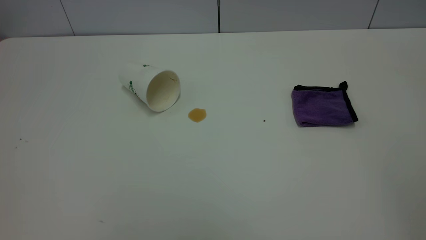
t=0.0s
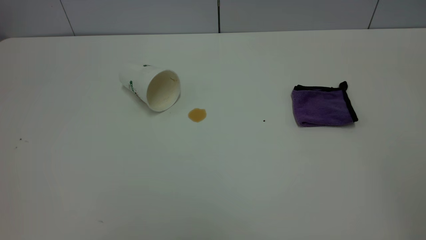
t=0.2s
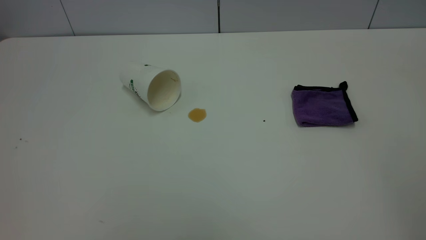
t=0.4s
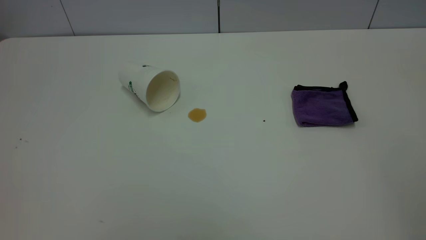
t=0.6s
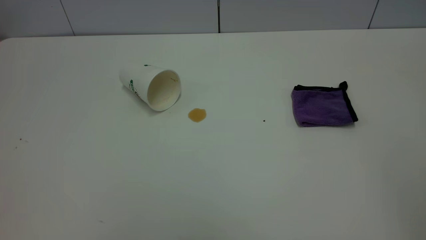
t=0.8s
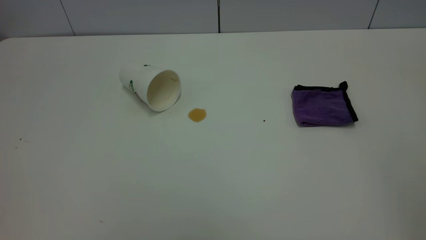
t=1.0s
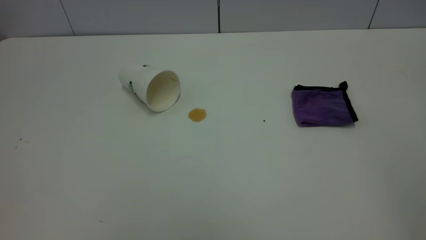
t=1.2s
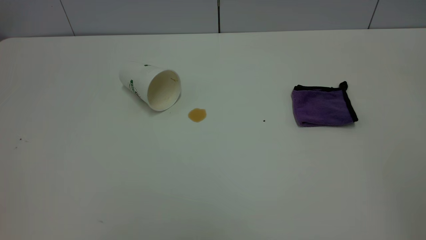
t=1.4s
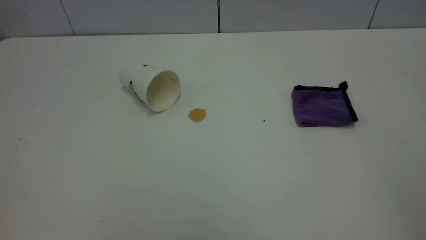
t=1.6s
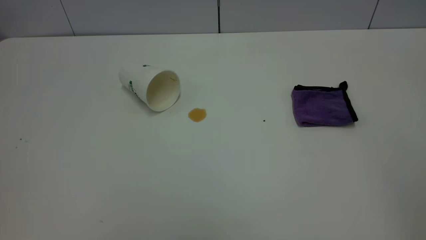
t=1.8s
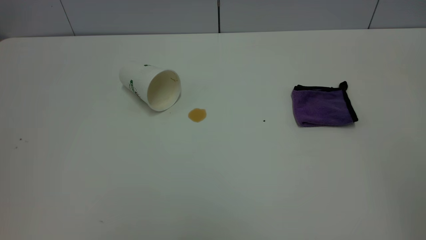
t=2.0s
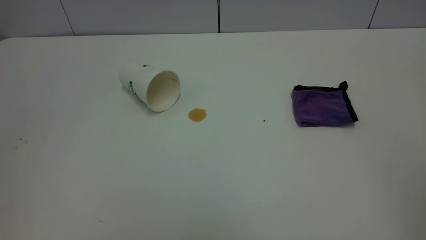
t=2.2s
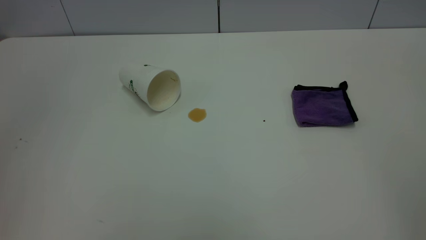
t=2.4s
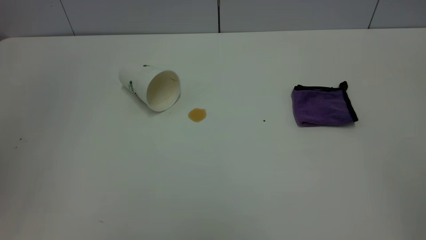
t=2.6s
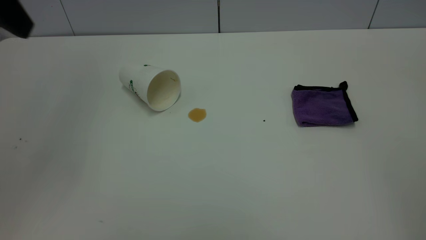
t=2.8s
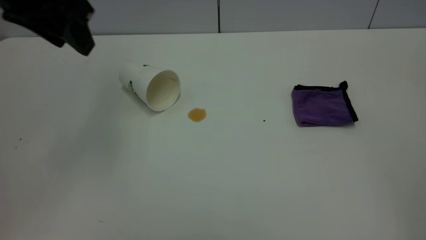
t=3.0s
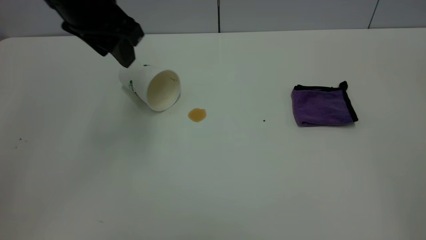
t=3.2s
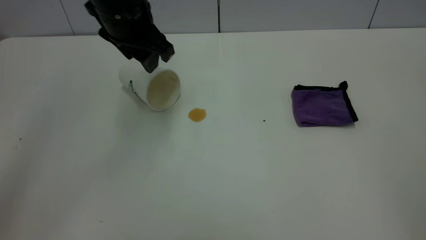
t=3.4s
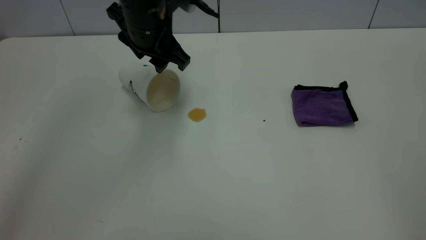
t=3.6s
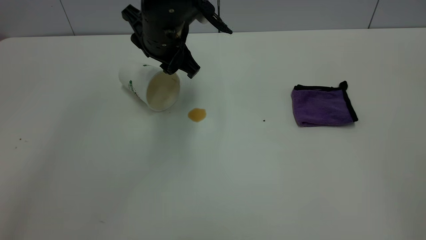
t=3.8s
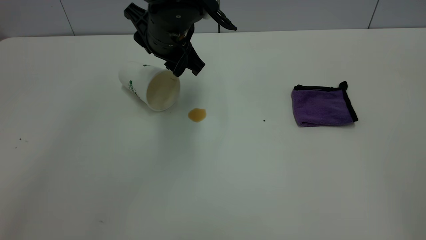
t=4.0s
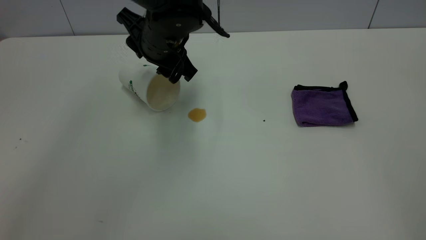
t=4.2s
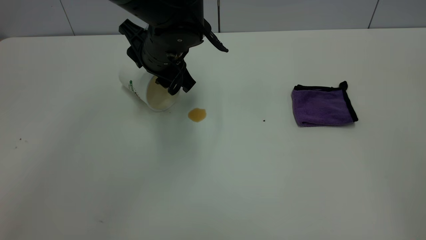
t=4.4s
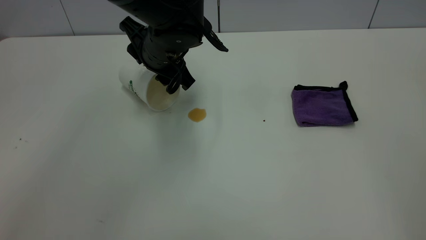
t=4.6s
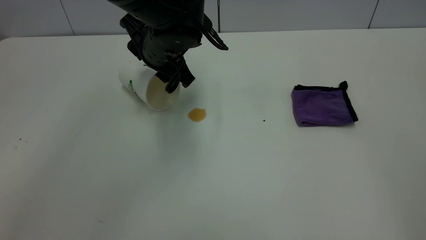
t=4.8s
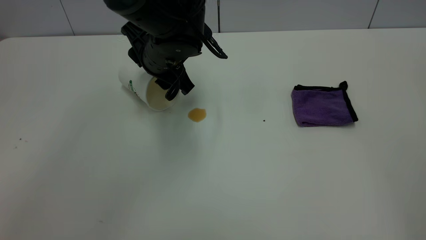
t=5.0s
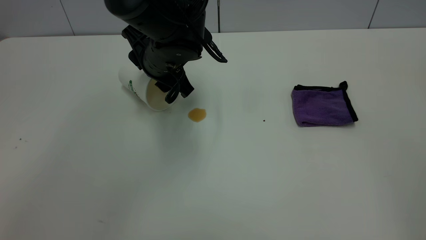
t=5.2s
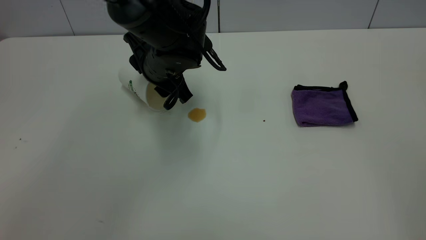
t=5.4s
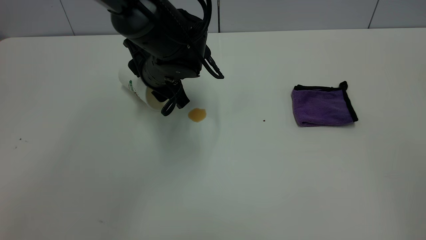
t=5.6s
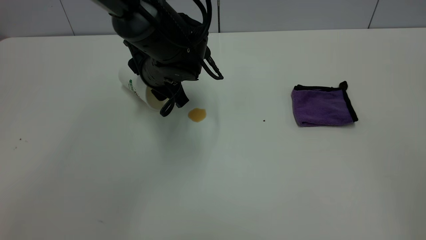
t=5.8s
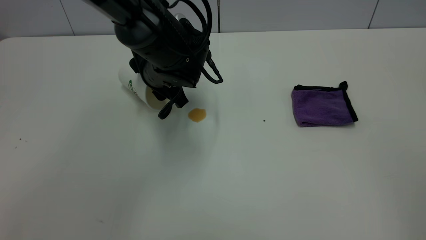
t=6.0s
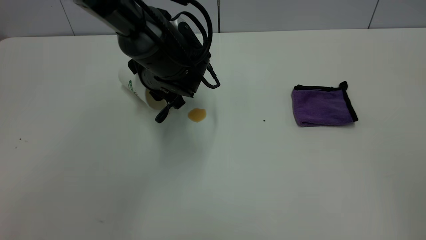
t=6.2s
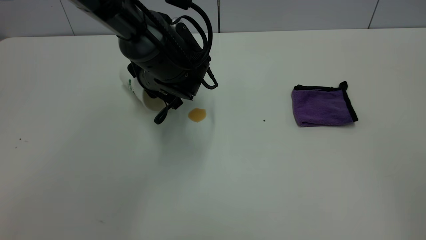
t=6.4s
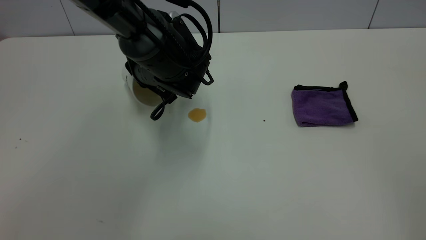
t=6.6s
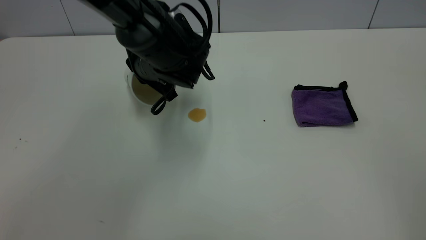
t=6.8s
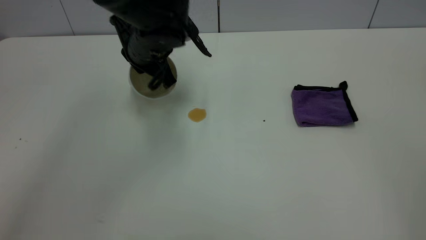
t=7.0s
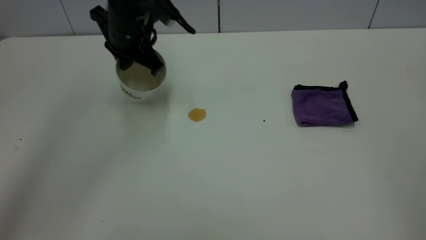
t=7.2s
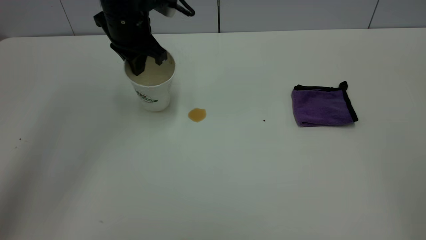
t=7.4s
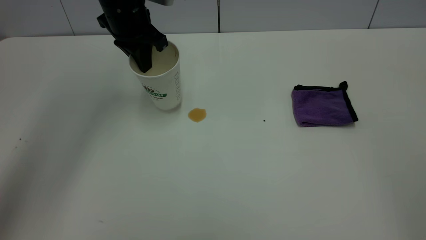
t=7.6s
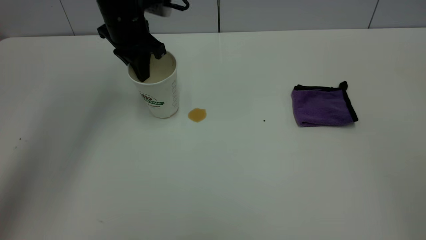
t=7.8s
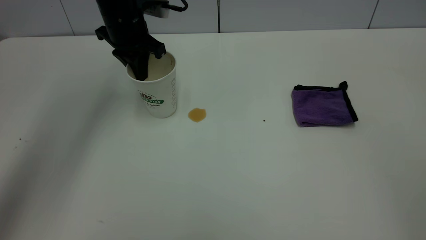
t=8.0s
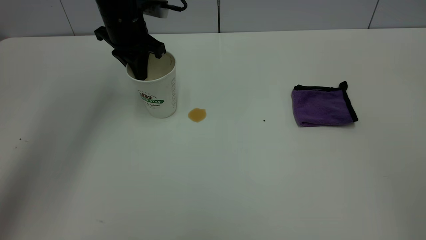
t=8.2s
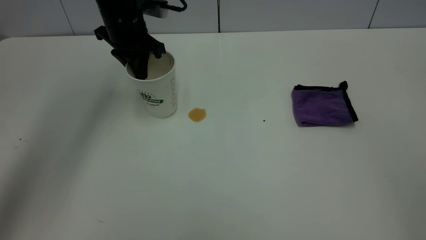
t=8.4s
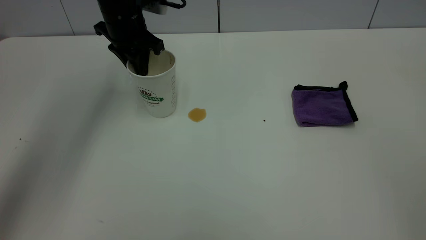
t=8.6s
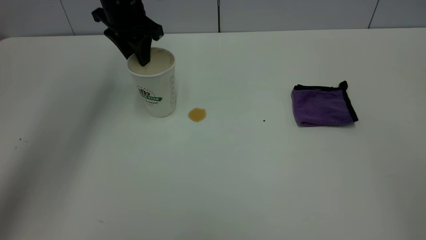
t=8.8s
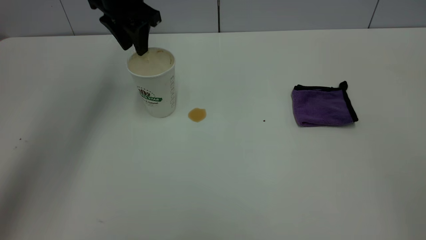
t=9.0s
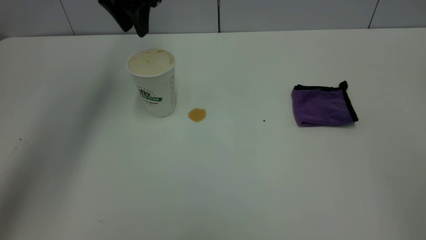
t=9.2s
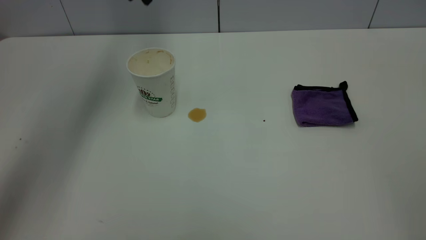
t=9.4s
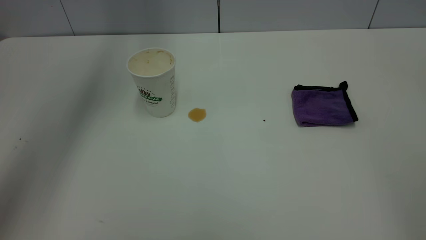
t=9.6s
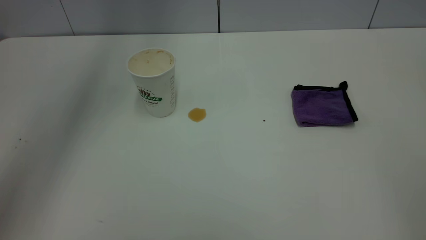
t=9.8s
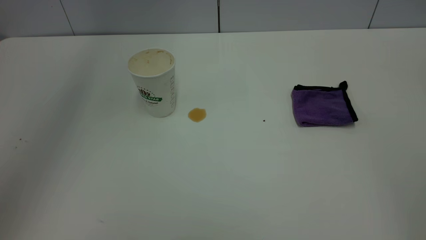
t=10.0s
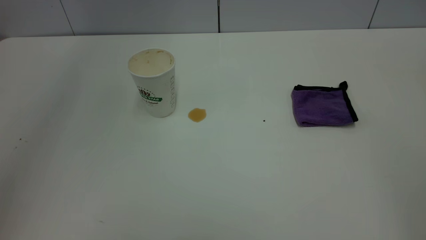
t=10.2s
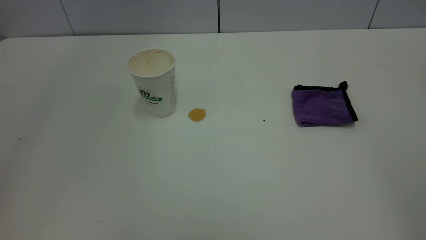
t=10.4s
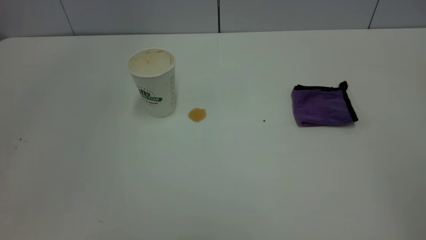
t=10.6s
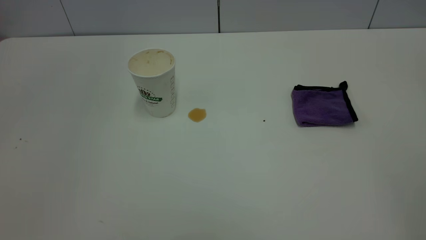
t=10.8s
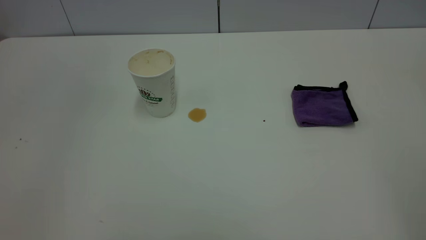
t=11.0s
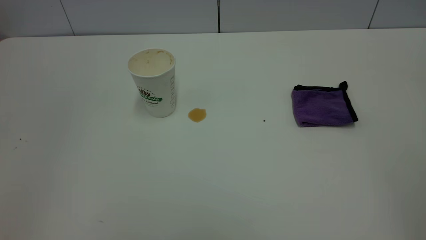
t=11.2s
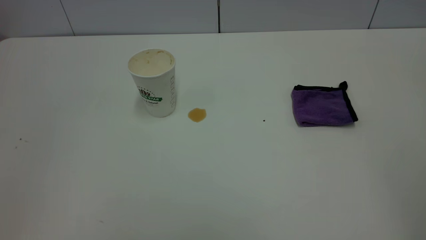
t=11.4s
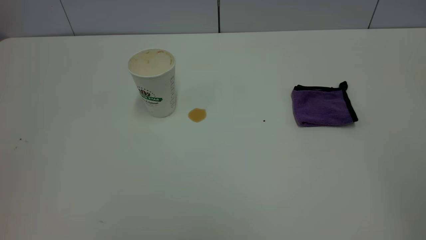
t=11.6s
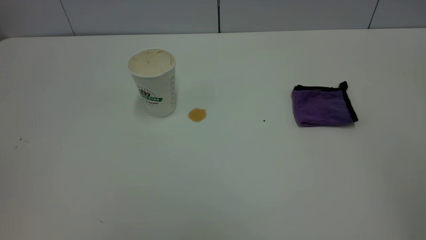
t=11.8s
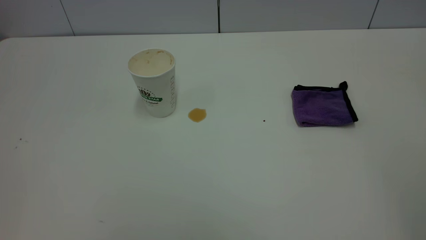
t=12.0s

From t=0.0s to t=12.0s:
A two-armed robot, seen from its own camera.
Task of the whole recording: the left gripper pick up the fallen cup and place it upright, the right gripper grasp the purple rag and wipe the tea stain on the table, the right gripper put the purple rag back in its original position.
Step, from t=0.0s to t=9.0s: Stand the paper cup upright.
From t=0.0s to t=1.6s: Both grippers stay put.
From t=1.6s to t=3.0s: The left gripper heads forward, covering approximately 35 cm.
From t=3.0s to t=4.4s: The left gripper goes about 20 cm downward, to the right and forward.
From t=4.4s to t=6.0s: The left gripper moves downward, about 5 cm.
From t=6.0s to t=7.6s: The left gripper goes about 15 cm upward, to the left and forward, and closes its fingers.
From t=7.6s to t=9.0s: The left gripper opens up.
From t=9.0s to t=10.4s: The left gripper shifts about 40 cm upward and backward.

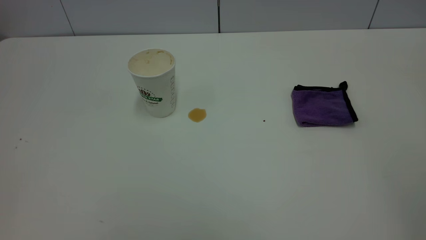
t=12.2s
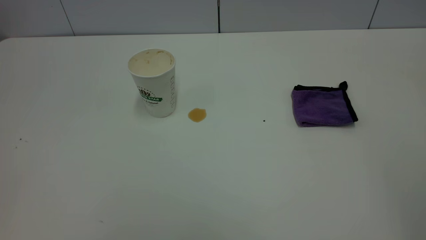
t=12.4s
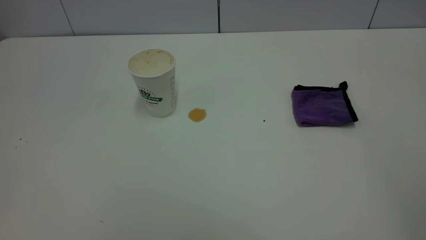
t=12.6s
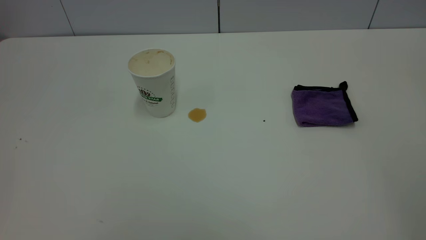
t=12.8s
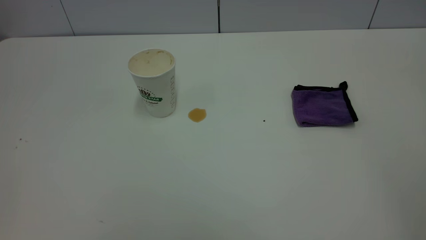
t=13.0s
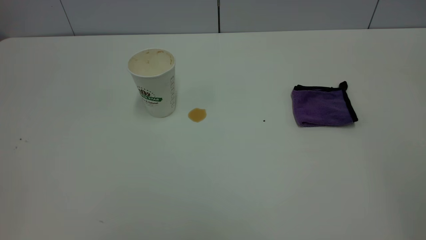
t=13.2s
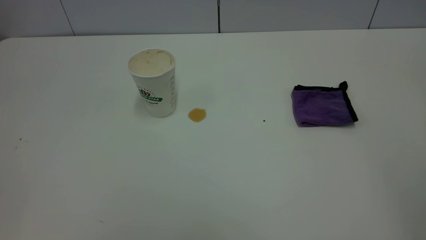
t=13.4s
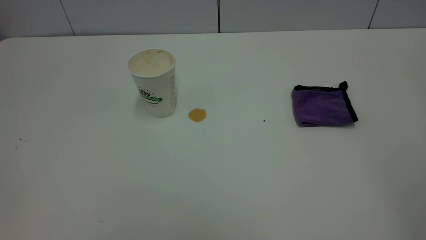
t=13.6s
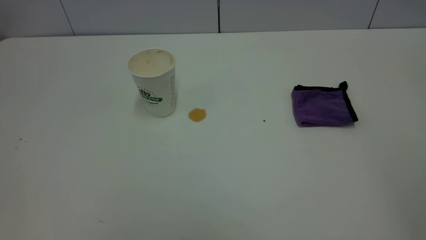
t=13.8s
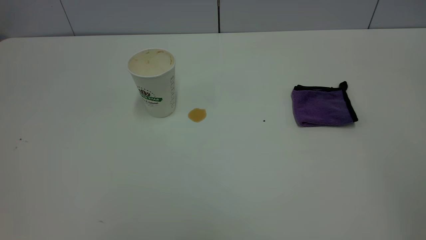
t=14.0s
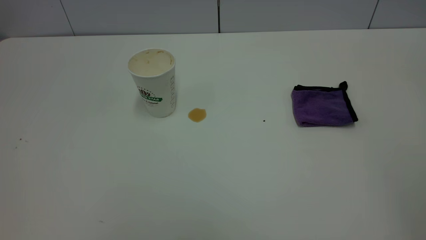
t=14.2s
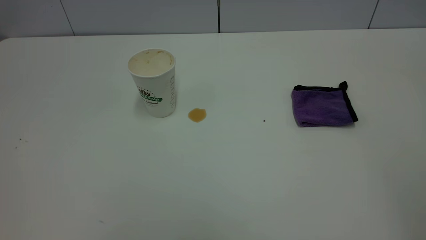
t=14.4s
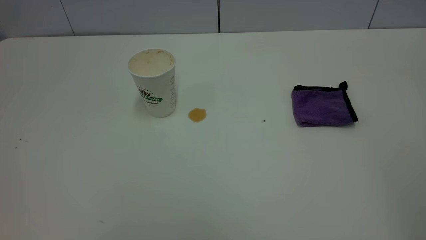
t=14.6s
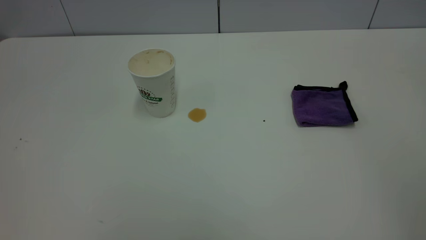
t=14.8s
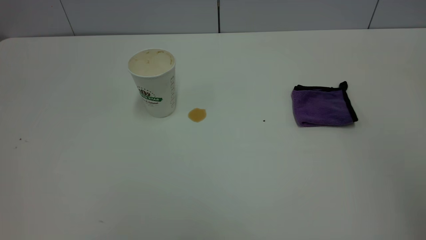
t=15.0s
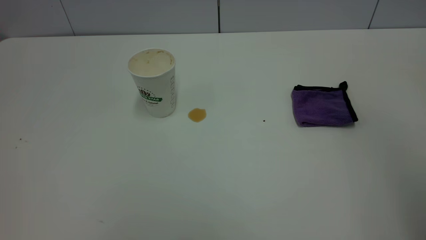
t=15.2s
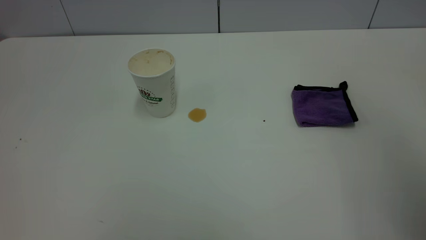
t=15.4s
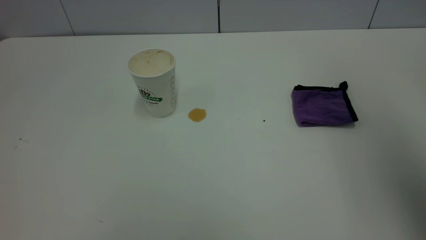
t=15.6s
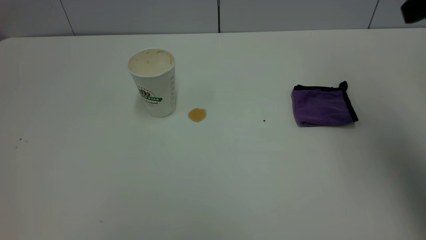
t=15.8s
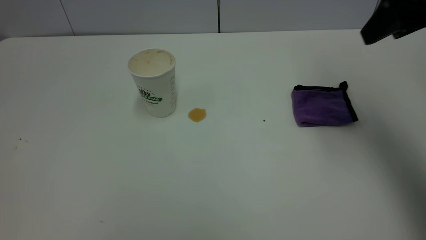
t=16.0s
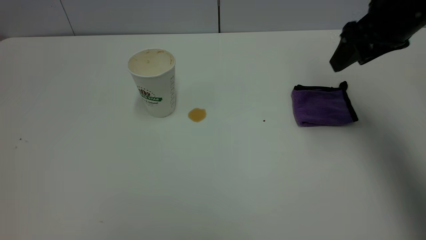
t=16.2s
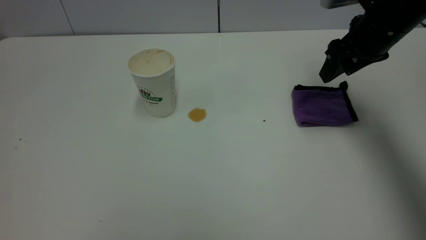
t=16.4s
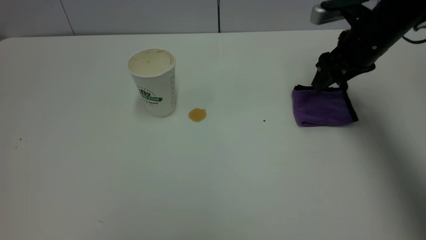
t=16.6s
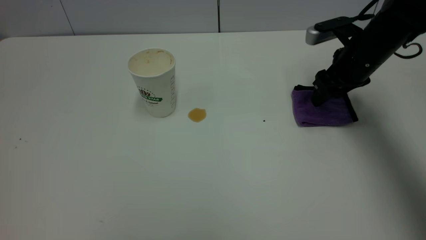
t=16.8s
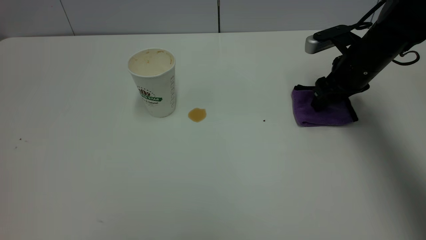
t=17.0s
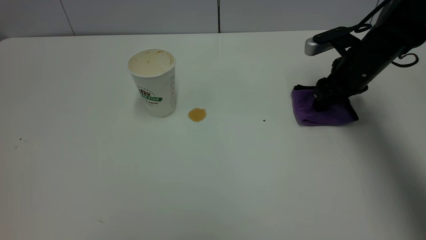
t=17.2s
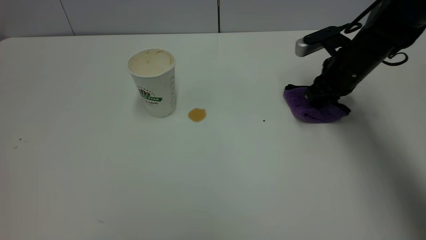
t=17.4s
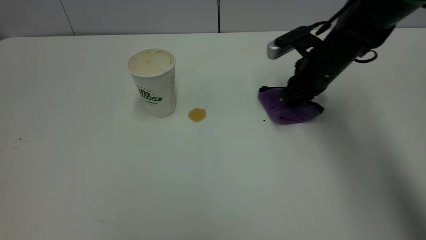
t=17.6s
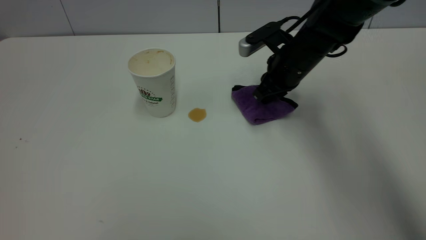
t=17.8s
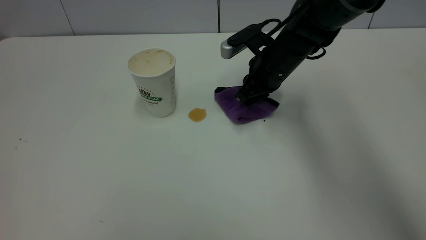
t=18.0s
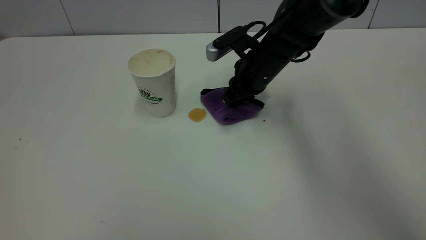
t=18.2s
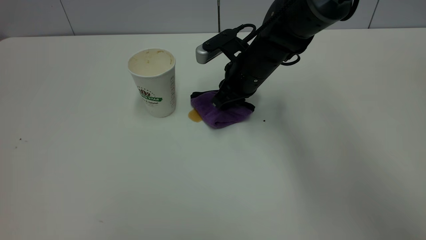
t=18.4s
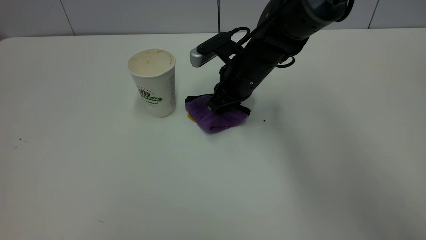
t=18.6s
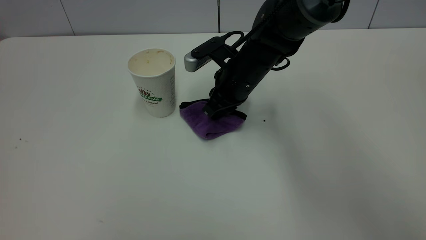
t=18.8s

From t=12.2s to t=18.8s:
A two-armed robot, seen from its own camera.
Task of the whole recording: the left gripper pick up the fallen cup and place it upright, the right gripper grasp the purple rag and wipe the tea stain on the table, the right gripper put the purple rag back in its original position.
From t=15.4s to t=17.2s: The right gripper heads downward and forward, covering approximately 40 cm.
From t=17.2s to t=18.8s: The right gripper travels to the left by about 20 cm, and closes.
